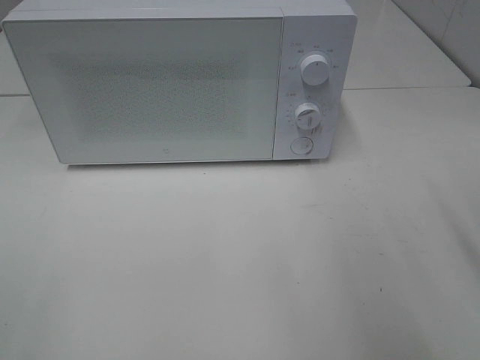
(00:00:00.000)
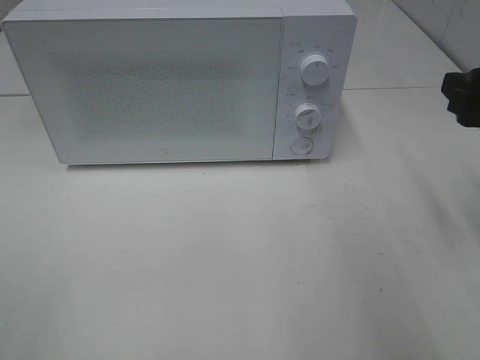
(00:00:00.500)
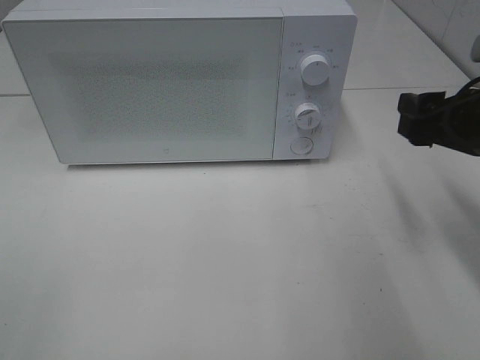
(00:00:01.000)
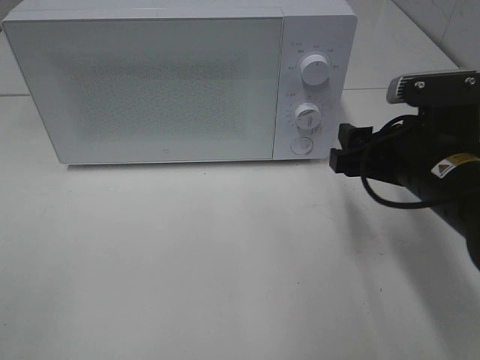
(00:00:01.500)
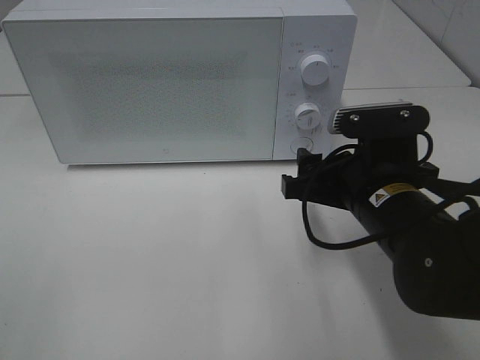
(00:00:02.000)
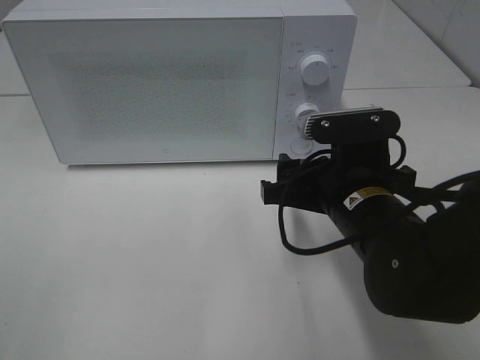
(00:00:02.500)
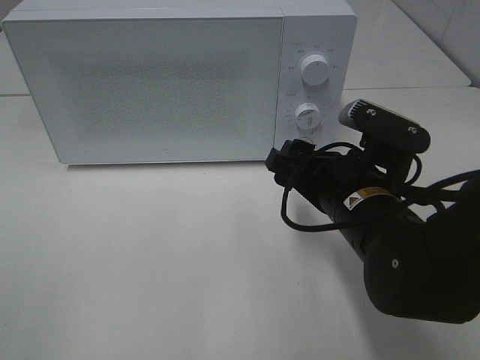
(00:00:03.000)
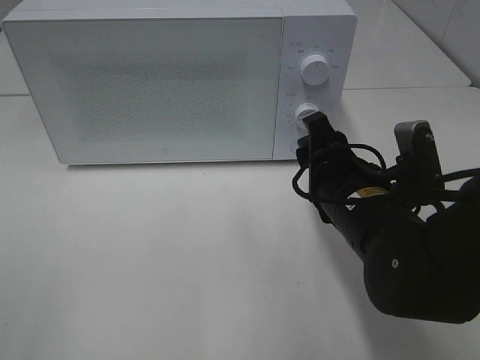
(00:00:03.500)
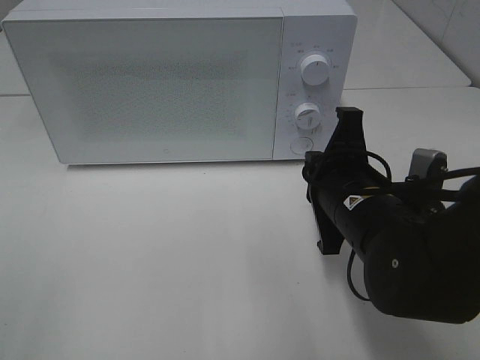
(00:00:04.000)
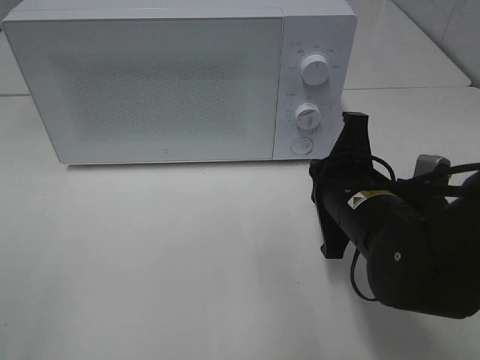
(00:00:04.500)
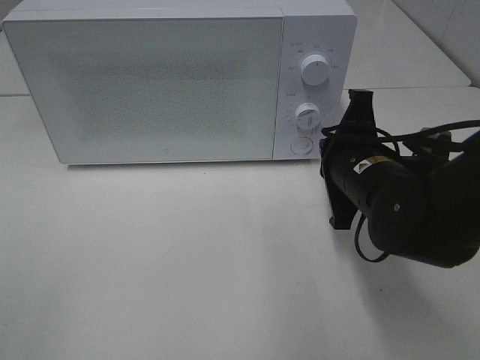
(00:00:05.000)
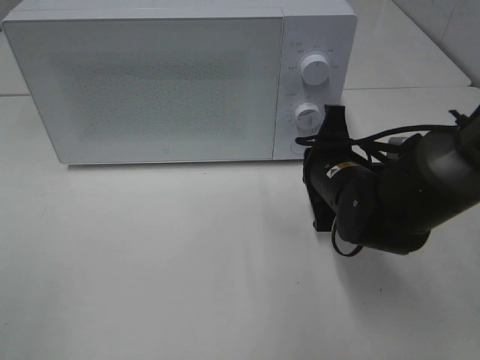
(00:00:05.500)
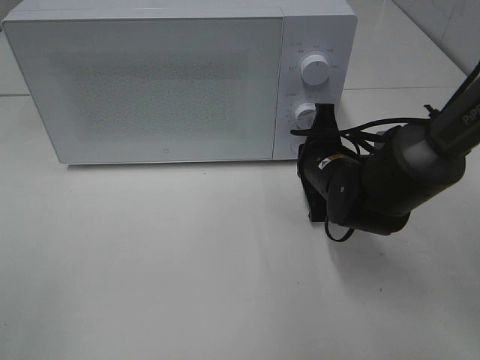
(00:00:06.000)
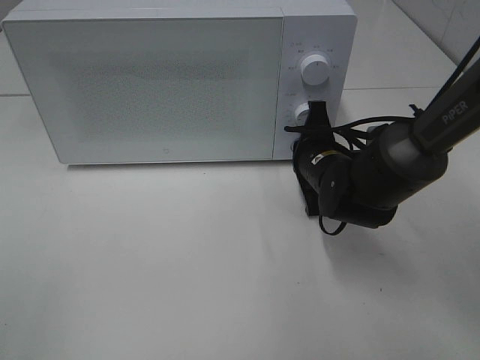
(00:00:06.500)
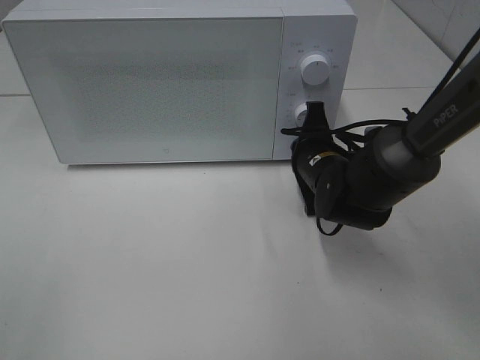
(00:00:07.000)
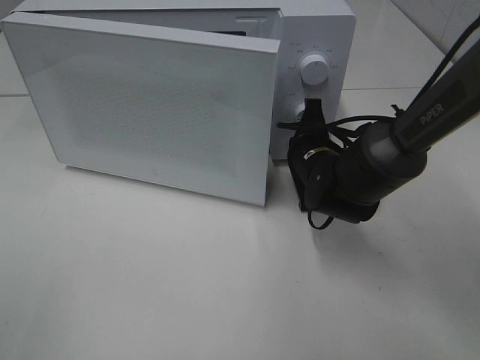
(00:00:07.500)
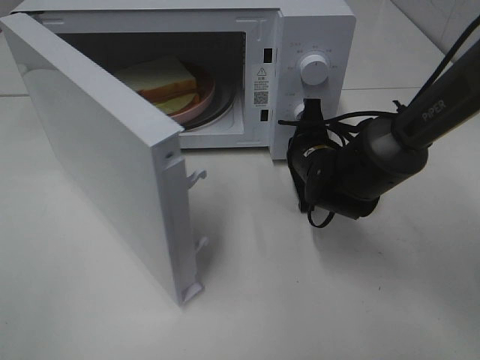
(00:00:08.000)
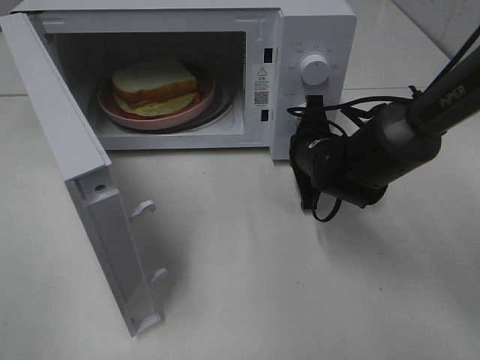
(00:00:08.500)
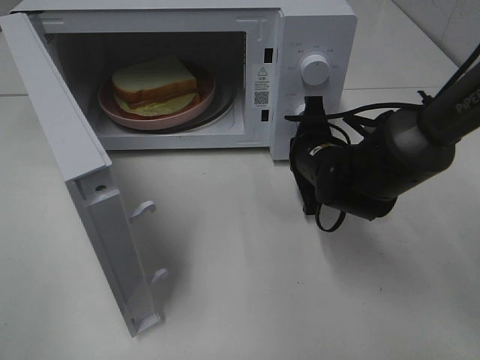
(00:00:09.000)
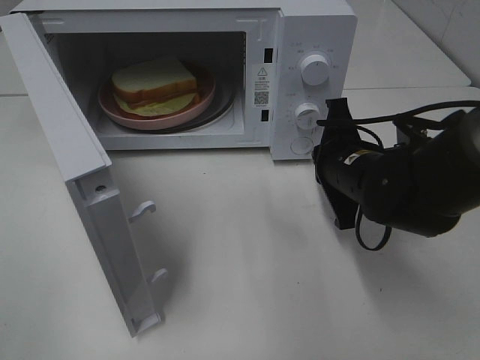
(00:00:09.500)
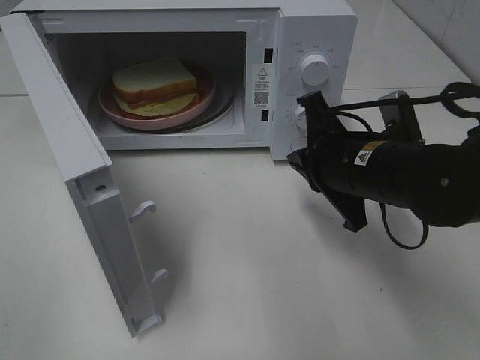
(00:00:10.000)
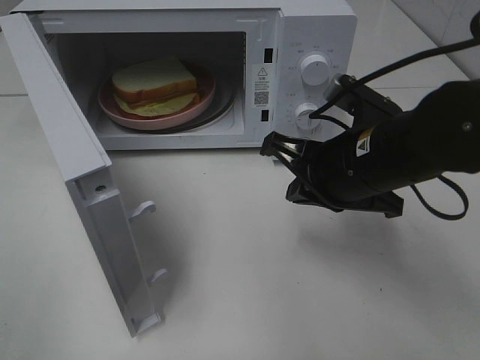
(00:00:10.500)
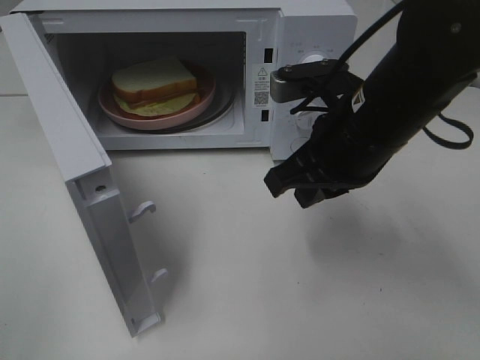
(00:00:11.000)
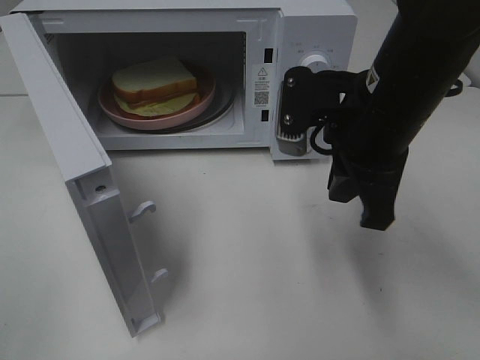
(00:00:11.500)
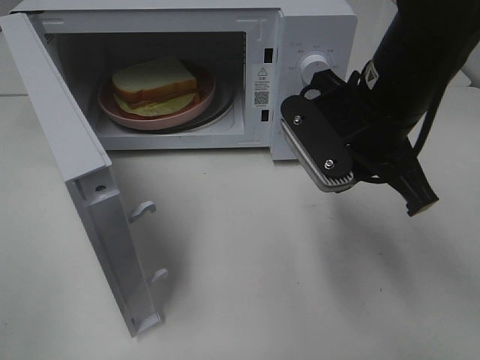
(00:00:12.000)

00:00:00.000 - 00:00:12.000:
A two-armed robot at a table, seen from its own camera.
Task of the whole recording: Heat Sandwich.
Step, 00:00:00.000 - 00:00:08.500: Right hand: press the switch.
00:00:00.000 - 00:00:02.000: The right gripper is displaced to the left, downward and forward by about 20 cm.
00:00:02.000 - 00:00:04.000: The right gripper closes up.
00:00:04.000 - 00:00:06.000: The right gripper shifts roughly 10 cm forward and downward.
00:00:08.000 - 00:00:10.000: The right gripper is displaced backward and upward by approximately 15 cm.
00:00:10.000 - 00:00:12.000: The right gripper moves upward, about 10 cm.

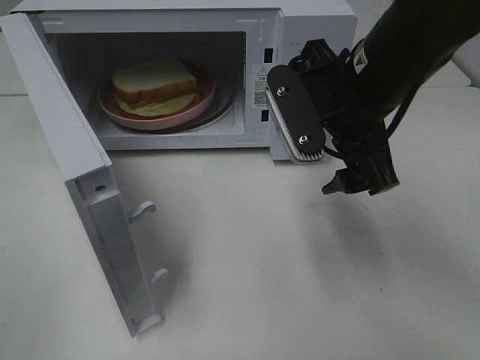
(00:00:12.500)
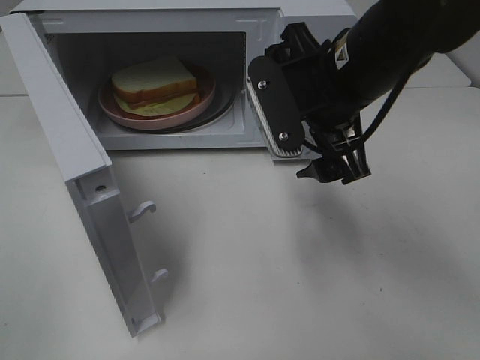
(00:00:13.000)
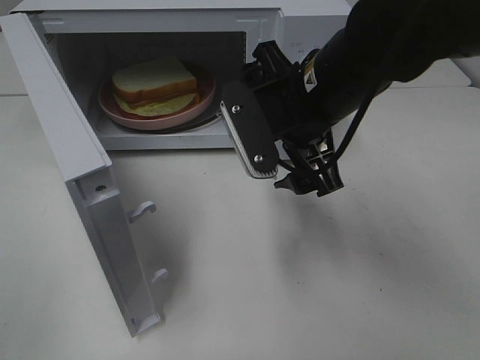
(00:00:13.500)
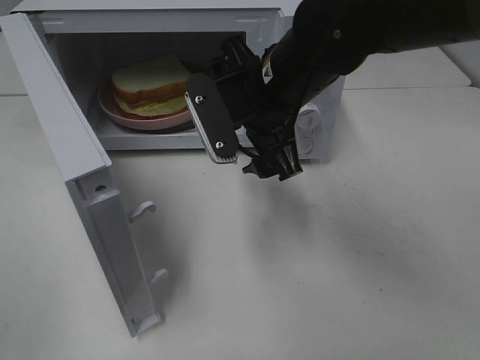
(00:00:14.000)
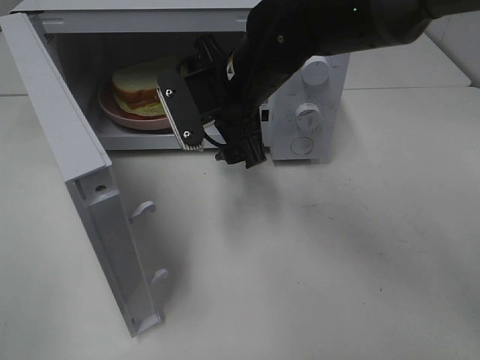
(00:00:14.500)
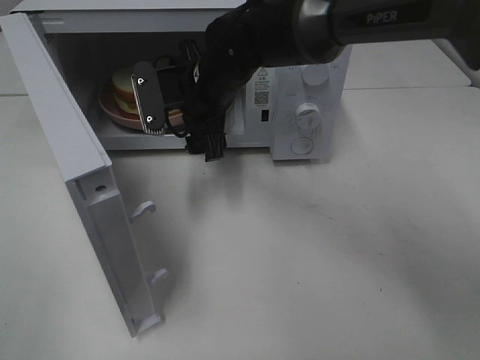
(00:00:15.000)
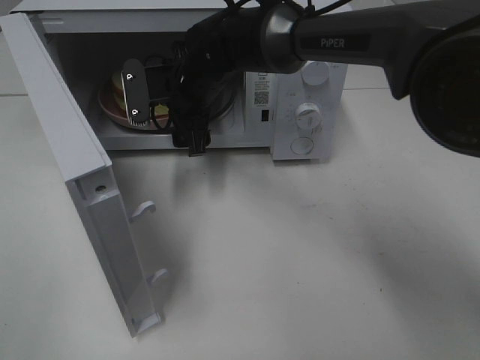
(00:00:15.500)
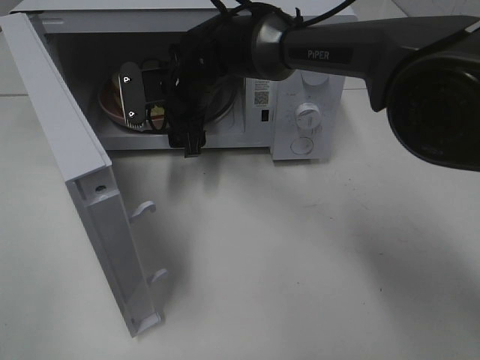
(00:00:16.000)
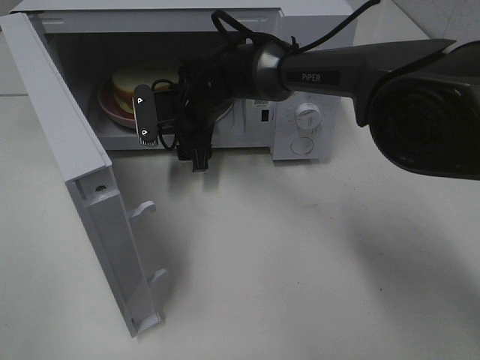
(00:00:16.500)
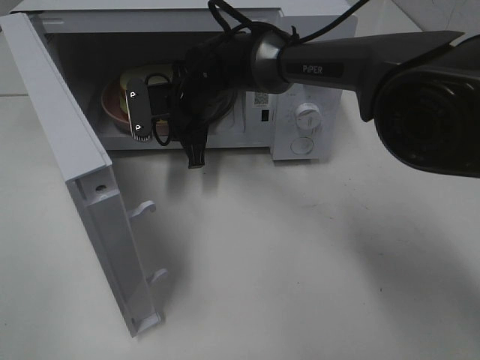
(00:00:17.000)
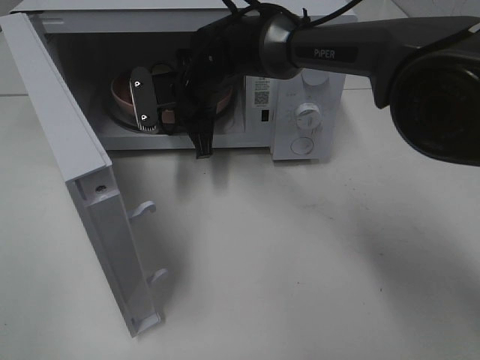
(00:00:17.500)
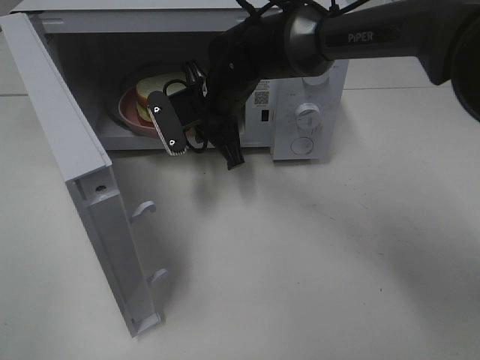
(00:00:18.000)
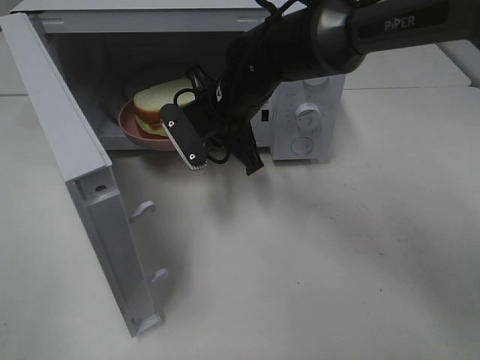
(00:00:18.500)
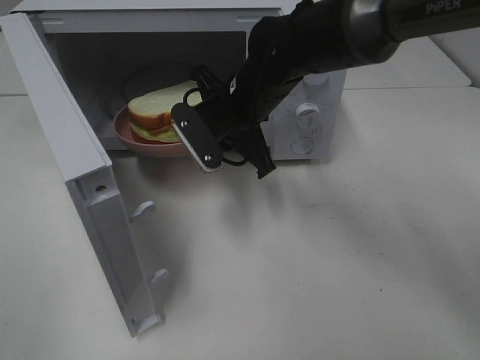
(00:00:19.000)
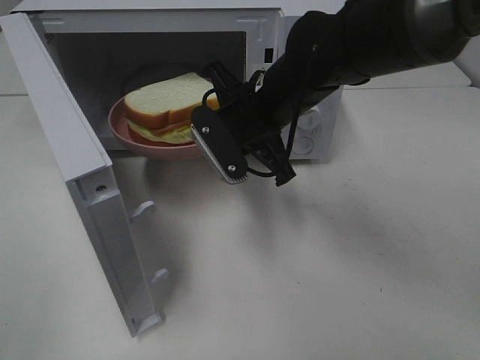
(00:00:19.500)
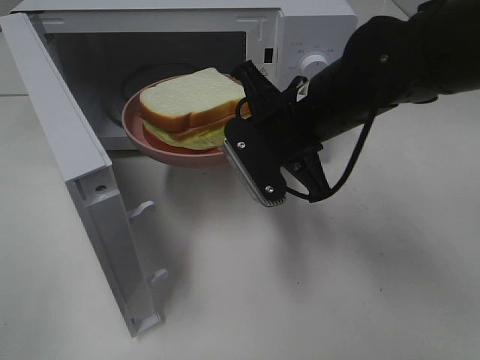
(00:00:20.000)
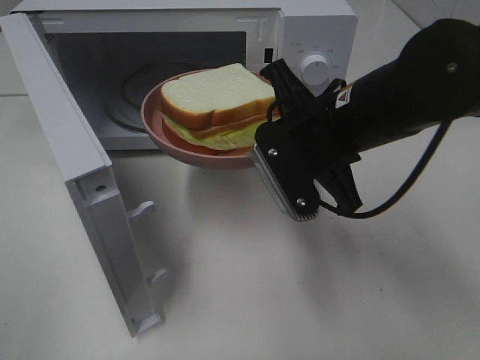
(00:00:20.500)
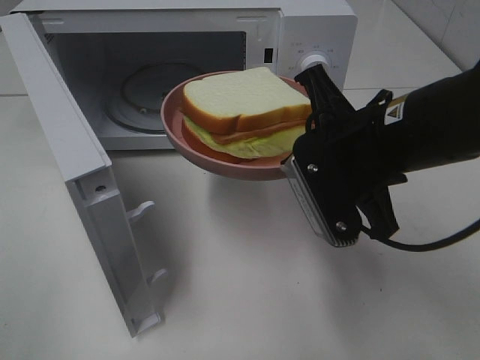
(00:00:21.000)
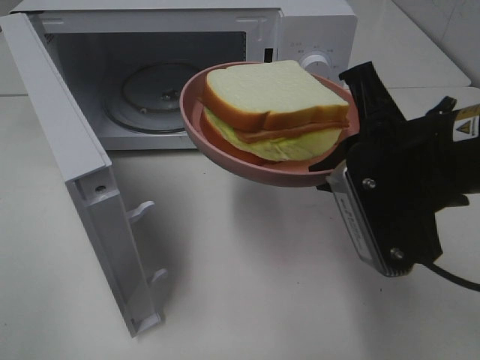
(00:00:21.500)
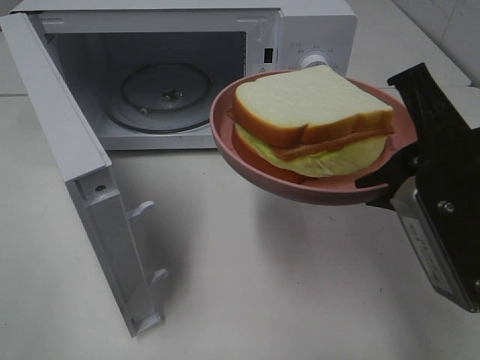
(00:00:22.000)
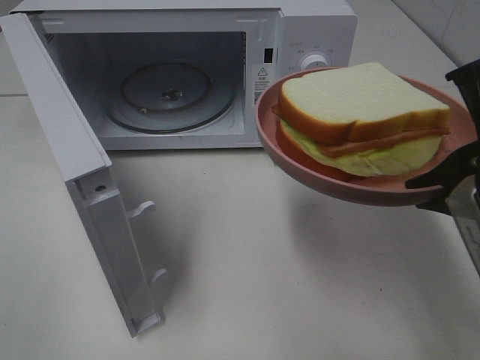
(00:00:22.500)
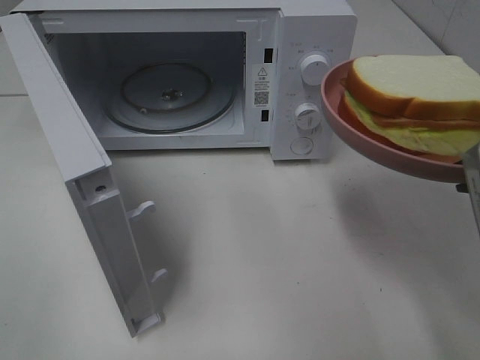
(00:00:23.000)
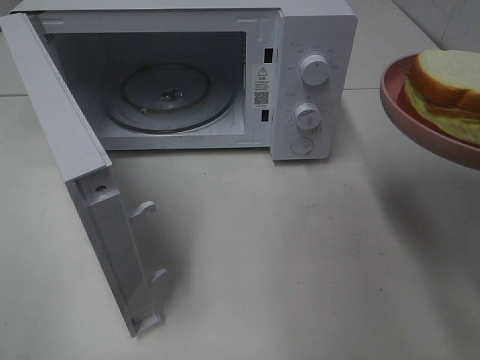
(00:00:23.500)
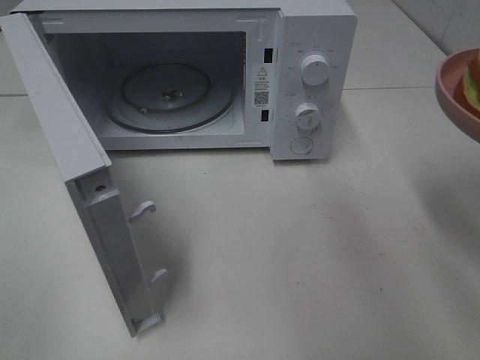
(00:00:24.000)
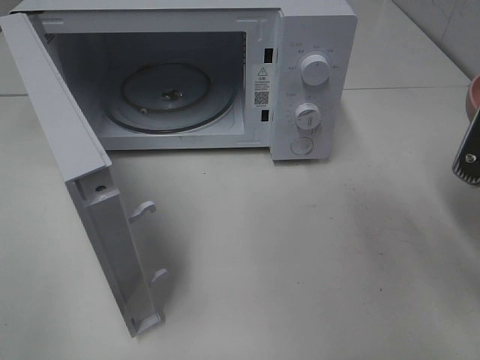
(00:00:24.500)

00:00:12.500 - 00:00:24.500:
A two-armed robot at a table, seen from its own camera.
Task of the whole recording: Heat Sandwich.
Step, 00:00:12.500 - 00:00:17.500: Right hand: grab the plate with the sandwich.
00:00:12.500 - 00:00:14.500: The right gripper shifts about 15 cm to the left and forward.
00:00:14.500 - 00:00:16.500: The right gripper shifts some 15 cm forward, downward and to the left.
00:00:16.500 - 00:00:18.500: The right gripper heads backward, covering roughly 5 cm, and closes.
00:00:18.500 - 00:00:20.500: The right gripper travels backward, to the right and upward by about 15 cm.
00:00:20.500 - 00:00:22.500: The right gripper is displaced backward, to the right and upward by roughly 15 cm.
00:00:22.500 - 00:00:24.500: The right gripper moves approximately 5 cm.

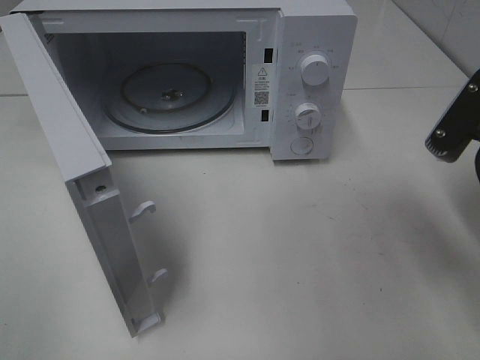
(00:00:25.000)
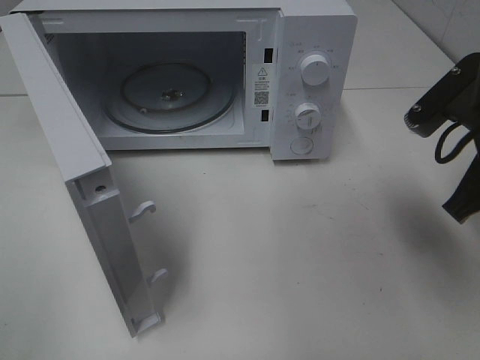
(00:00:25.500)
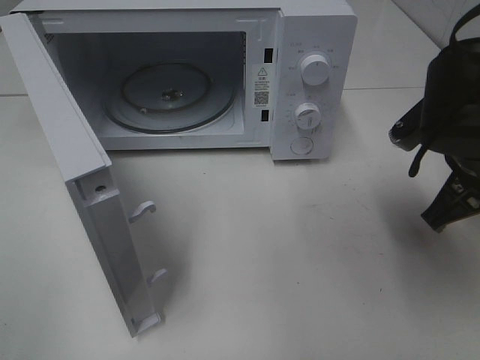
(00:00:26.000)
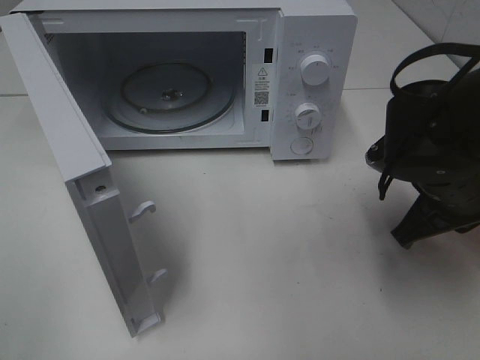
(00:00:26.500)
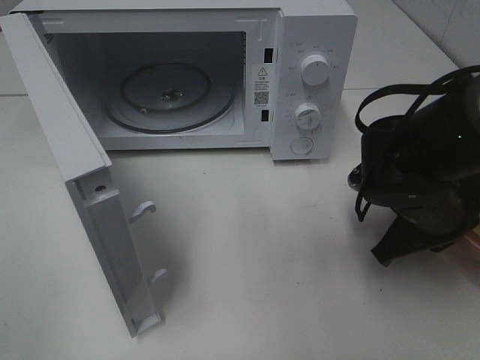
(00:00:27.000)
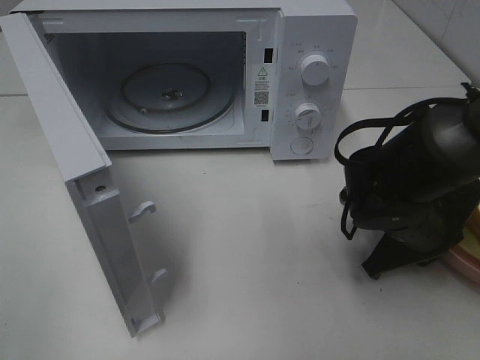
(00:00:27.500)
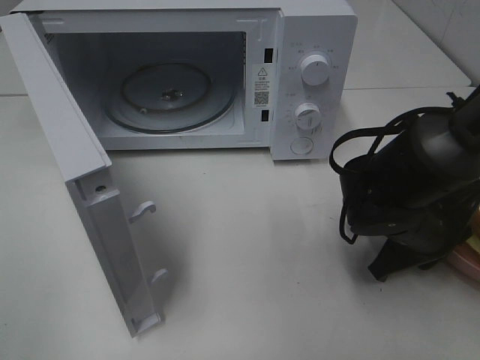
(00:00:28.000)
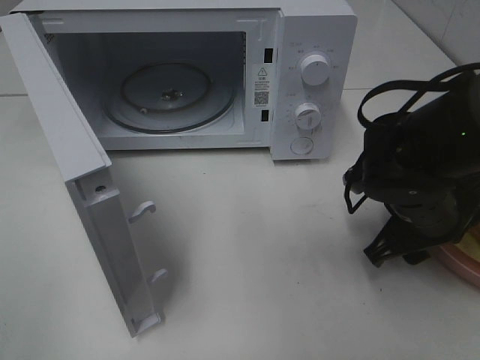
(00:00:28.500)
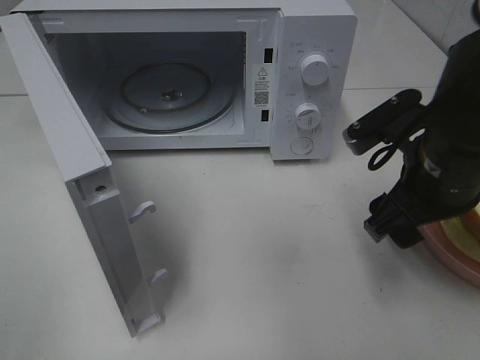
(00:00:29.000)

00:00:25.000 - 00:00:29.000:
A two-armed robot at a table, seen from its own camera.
Task of the whole recording: Heat Sandwich.
00:00:25.000 - 00:00:27.000: The right gripper shifts some 15 cm downward and forward.
00:00:27.000 - 00:00:29.000: The right gripper moves upward, some 10 cm, and opens up.
